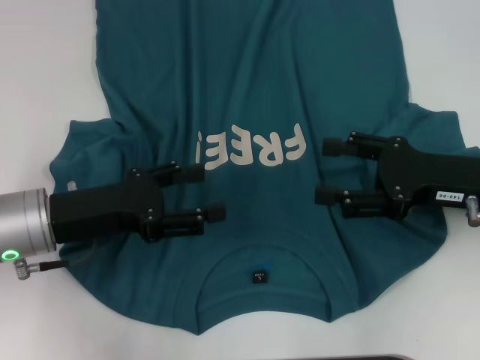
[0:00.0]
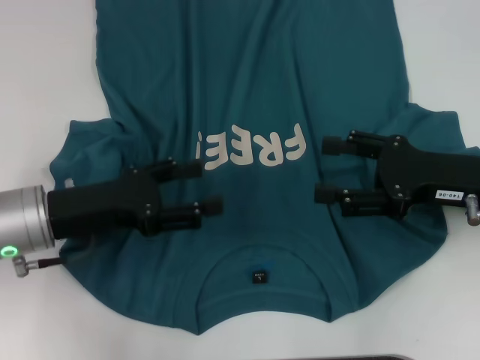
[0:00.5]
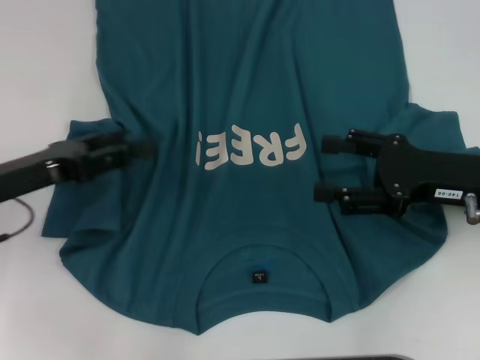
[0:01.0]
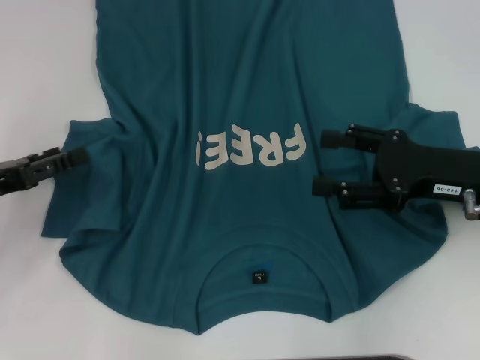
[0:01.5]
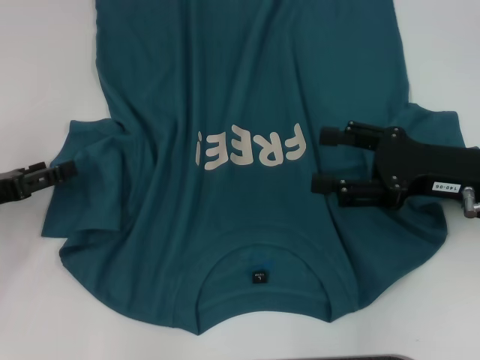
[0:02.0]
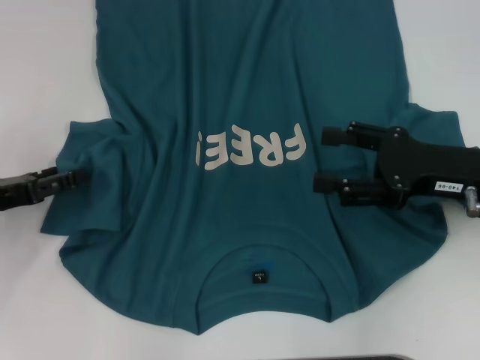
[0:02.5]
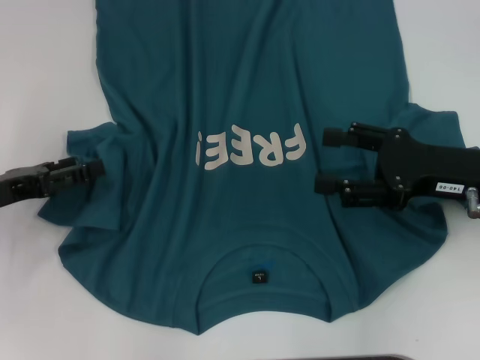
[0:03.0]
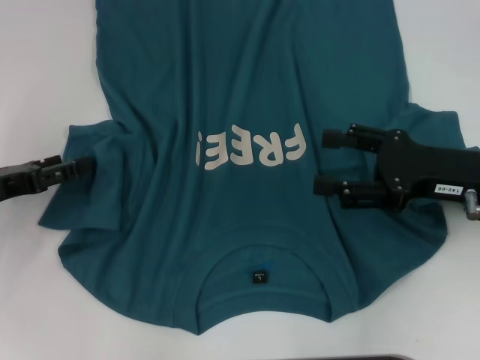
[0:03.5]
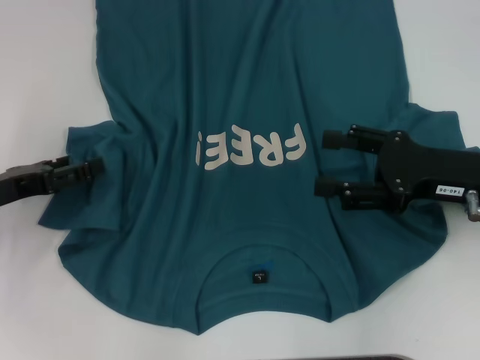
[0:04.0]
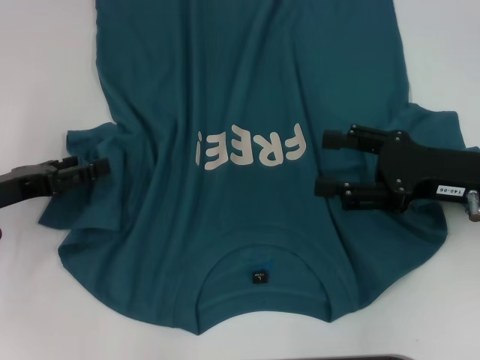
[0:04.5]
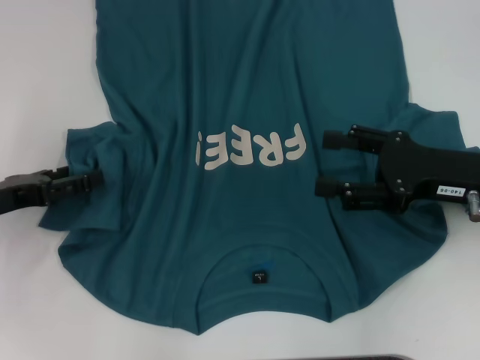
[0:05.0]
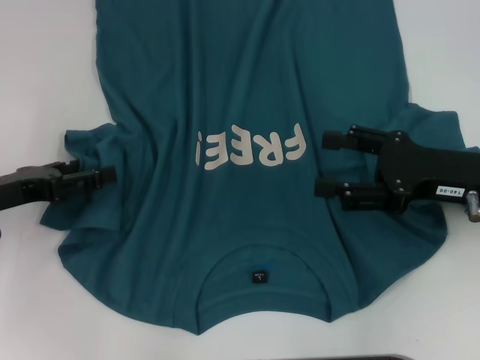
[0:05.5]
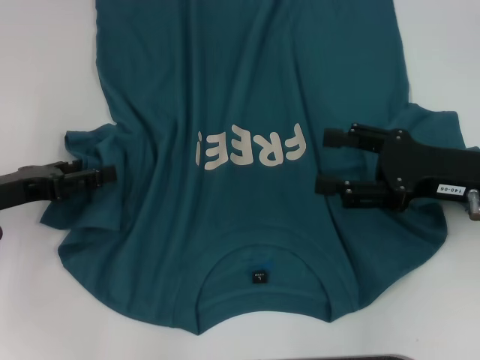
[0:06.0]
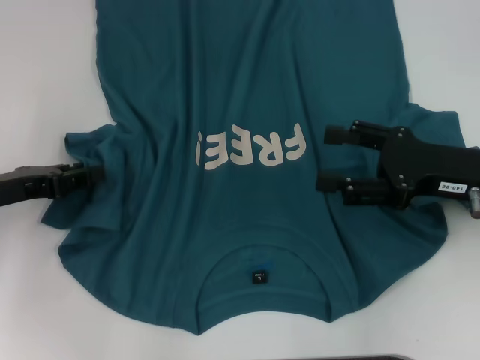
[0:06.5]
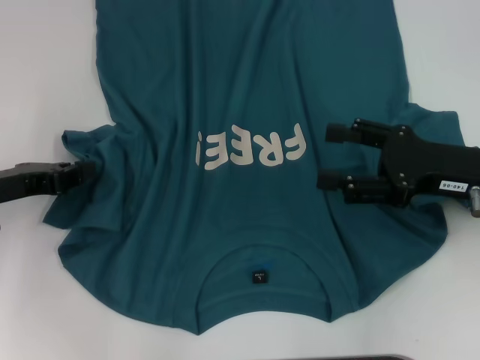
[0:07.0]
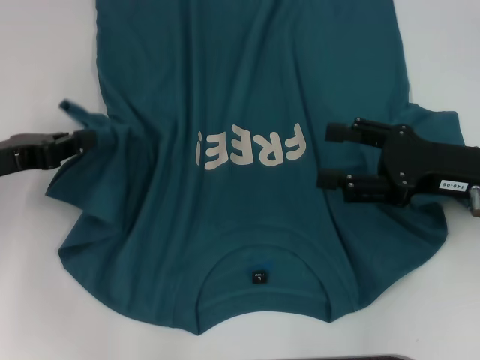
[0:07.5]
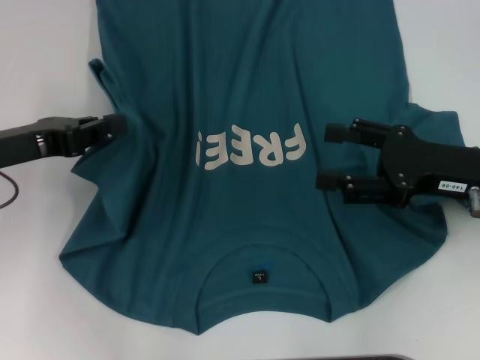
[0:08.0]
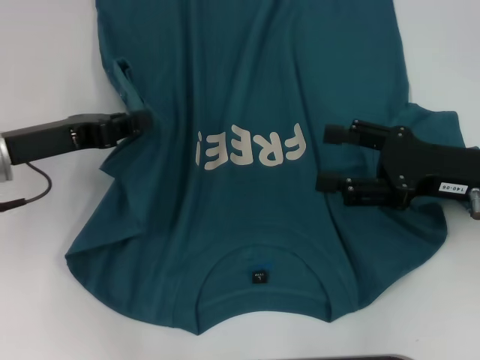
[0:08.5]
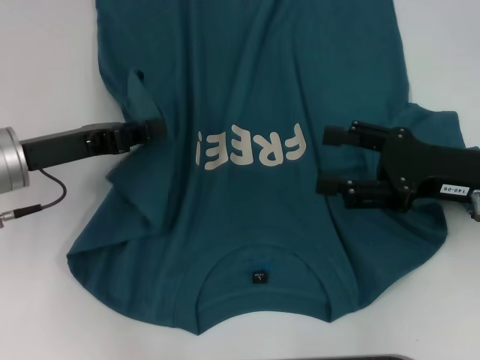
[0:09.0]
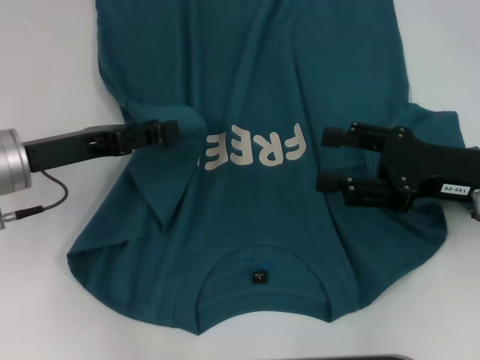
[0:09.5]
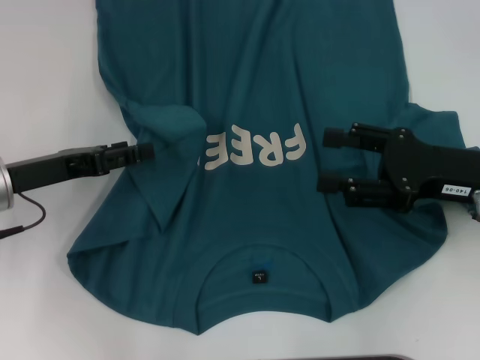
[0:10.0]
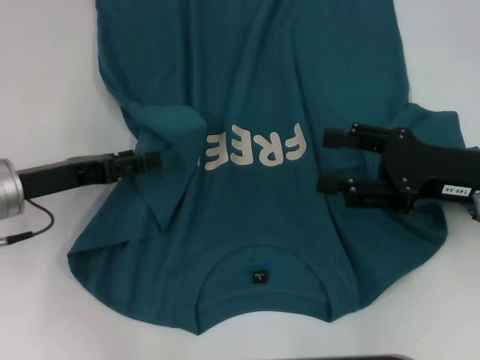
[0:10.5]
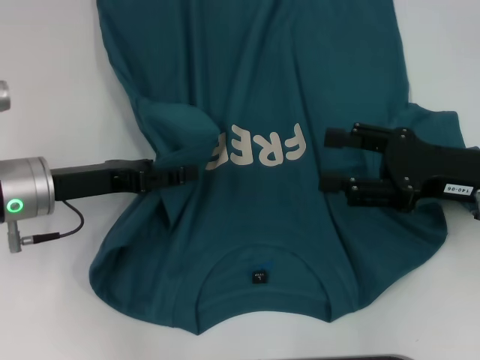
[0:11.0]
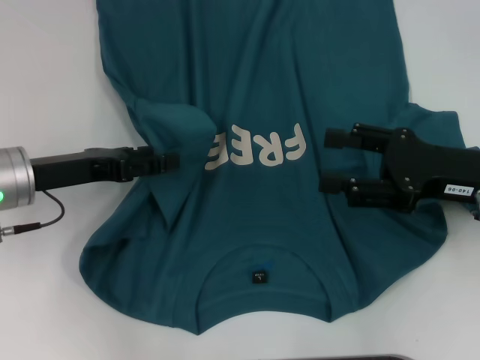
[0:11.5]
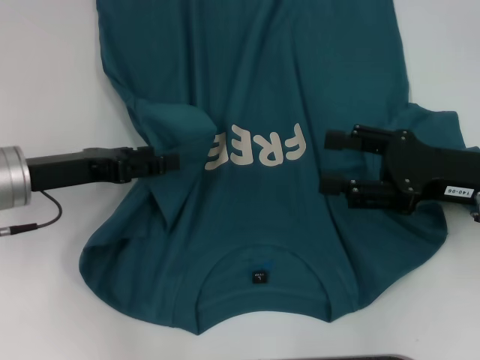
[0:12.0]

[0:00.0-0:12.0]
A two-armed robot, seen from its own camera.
0:00.0 to 0:02.0: The left gripper is displaced to the left by approximately 10 cm.
0:02.0 to 0:06.0: There are only small adjustments of the grippers.
0:06.0 to 0:08.0: The left gripper changes place by approximately 5 cm, and closes its fingers.
0:08.0 to 0:10.0: The left gripper opens its fingers.
0:10.0 to 0:12.0: There are only small adjustments of the grippers.

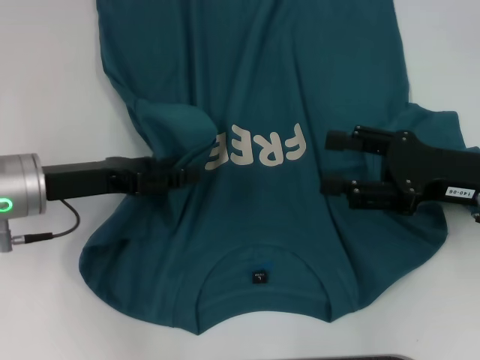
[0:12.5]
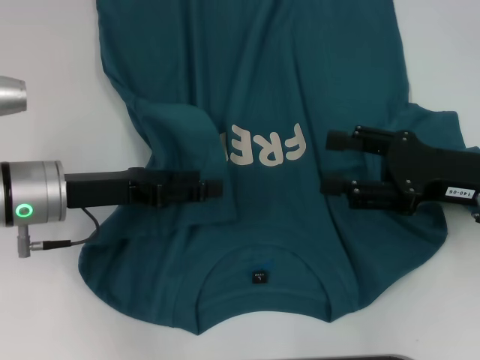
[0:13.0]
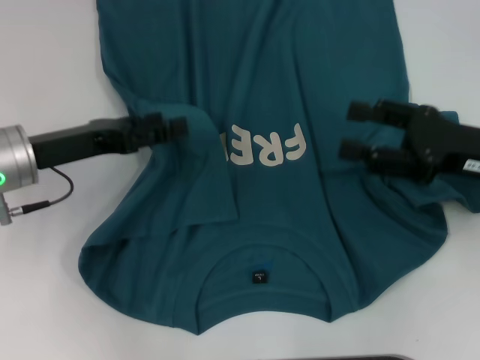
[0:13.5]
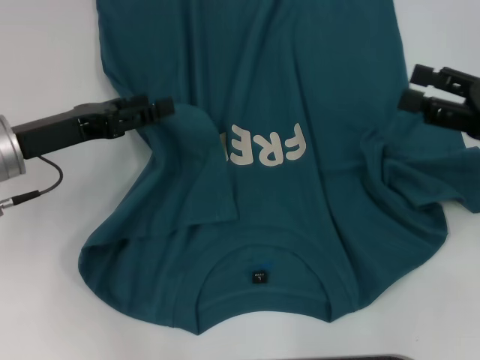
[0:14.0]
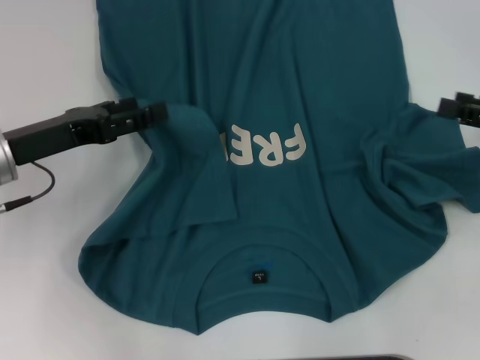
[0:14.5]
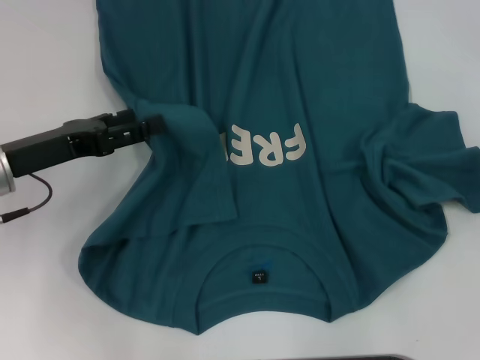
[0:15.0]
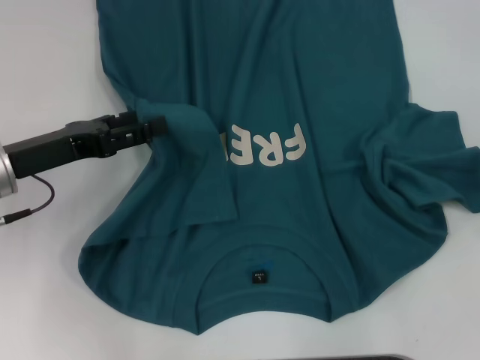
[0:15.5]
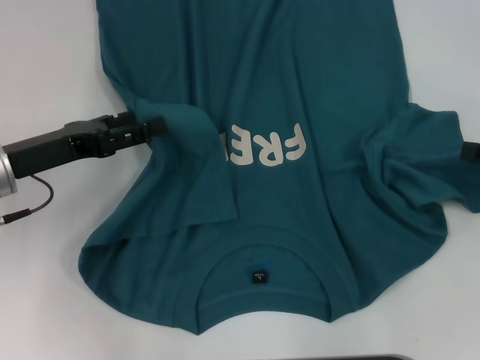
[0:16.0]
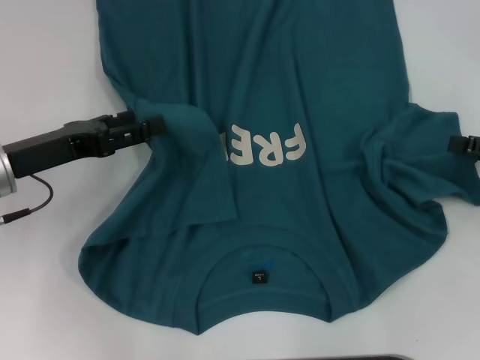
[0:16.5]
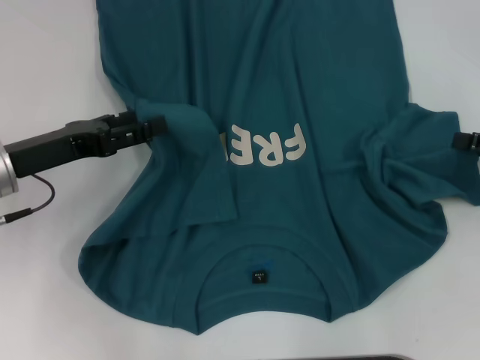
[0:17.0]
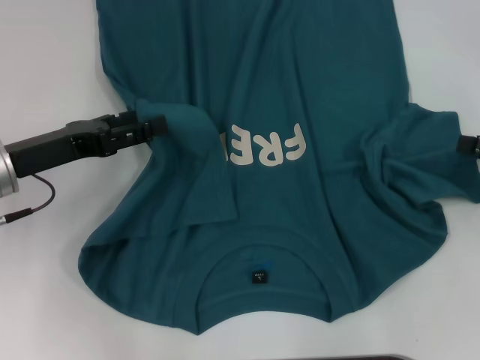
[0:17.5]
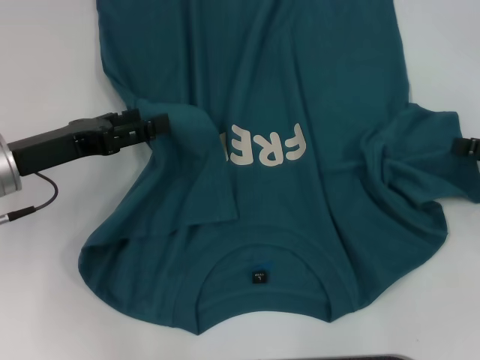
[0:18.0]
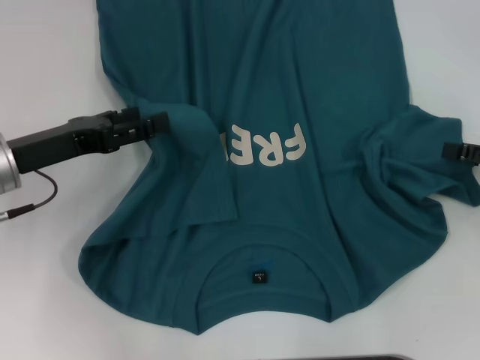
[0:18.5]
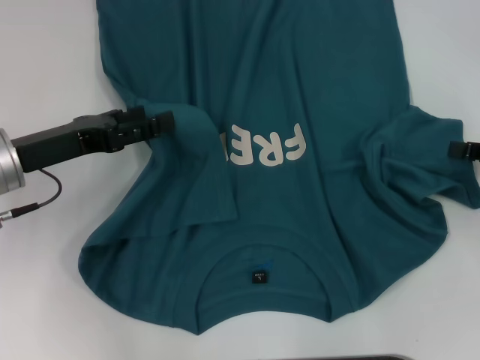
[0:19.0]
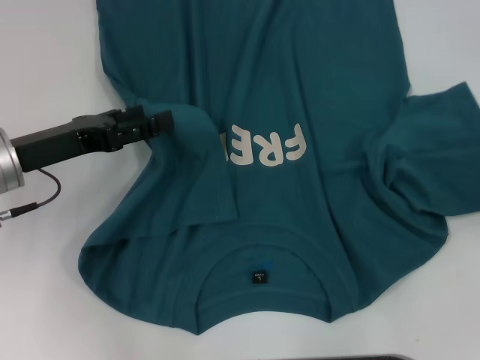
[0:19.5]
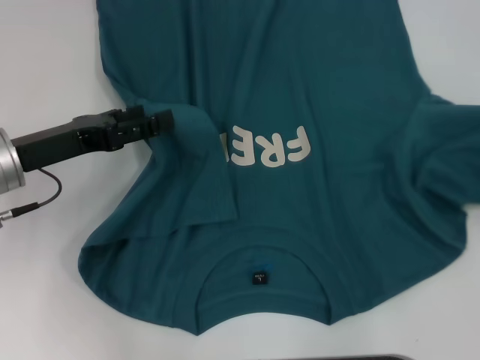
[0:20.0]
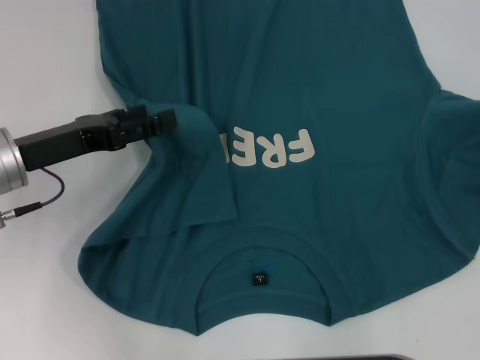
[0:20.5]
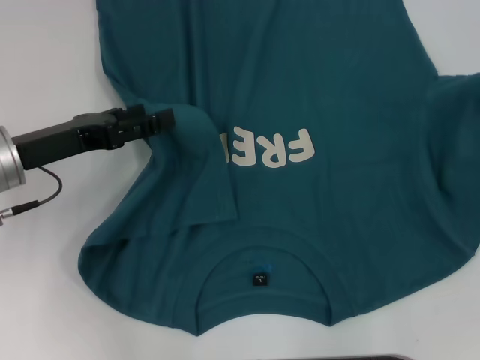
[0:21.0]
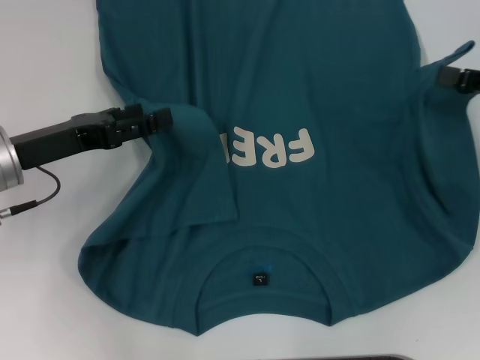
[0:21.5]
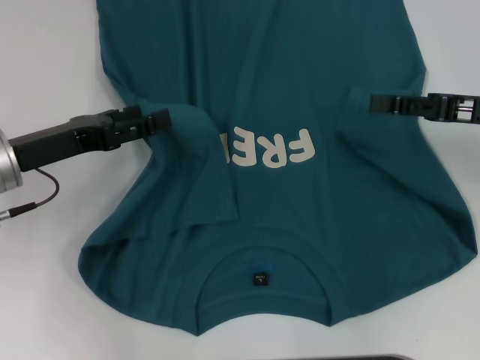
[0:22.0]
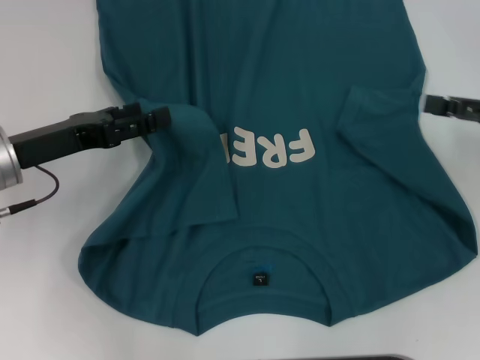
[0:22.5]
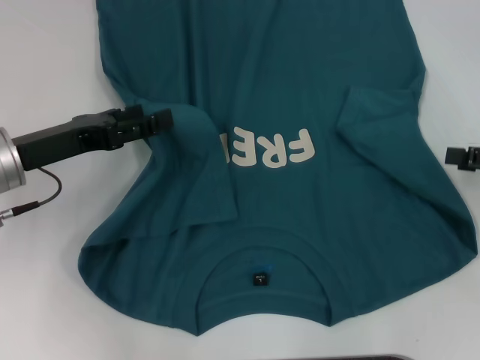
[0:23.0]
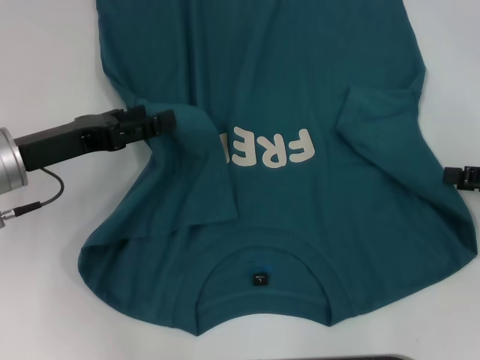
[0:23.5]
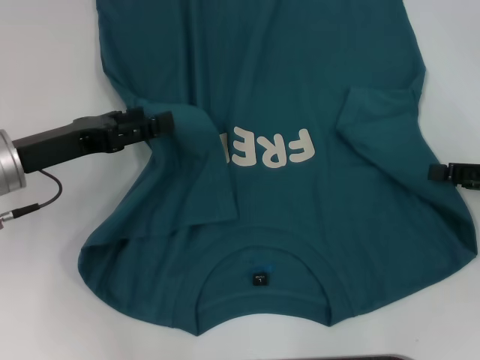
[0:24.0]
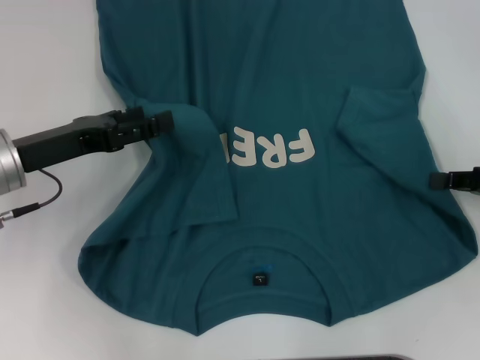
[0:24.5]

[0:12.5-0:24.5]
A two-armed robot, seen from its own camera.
0:12.5 to 0:14.5: The right gripper shifts about 10 cm to the right.
0:16.5 to 0:18.5: Both grippers stay put.
0:18.5 to 0:20.5: The right gripper shifts by roughly 5 cm, and closes.
0:20.5 to 0:22.5: The right gripper goes some 5 cm to the left, and opens.
0:22.5 to 0:24.5: The right gripper closes.

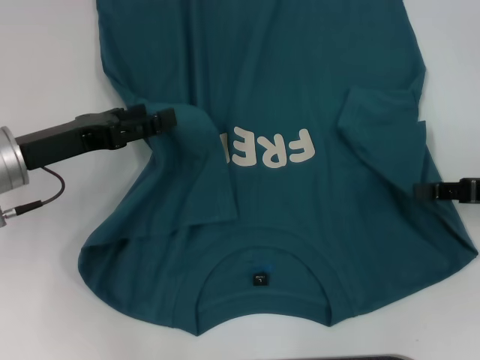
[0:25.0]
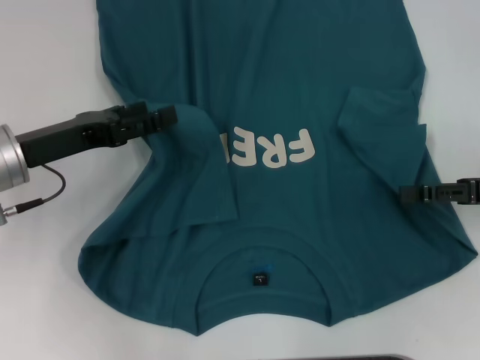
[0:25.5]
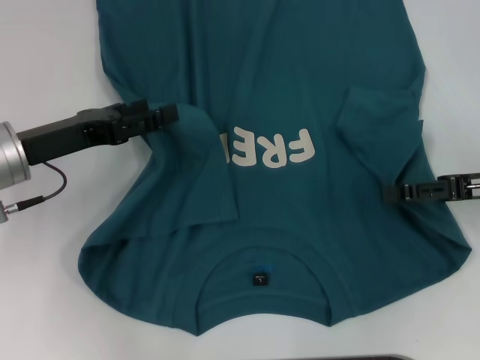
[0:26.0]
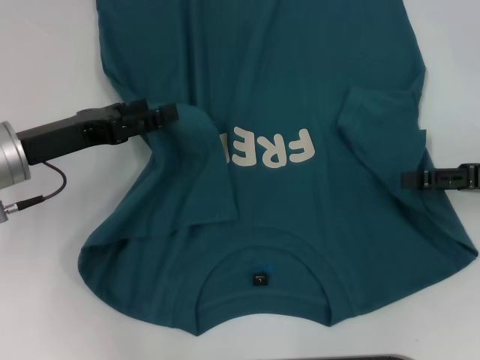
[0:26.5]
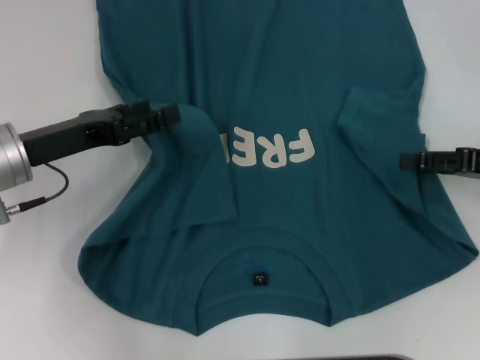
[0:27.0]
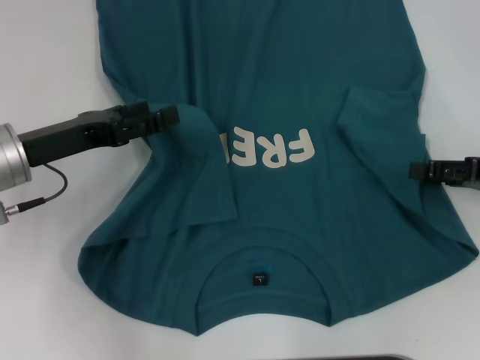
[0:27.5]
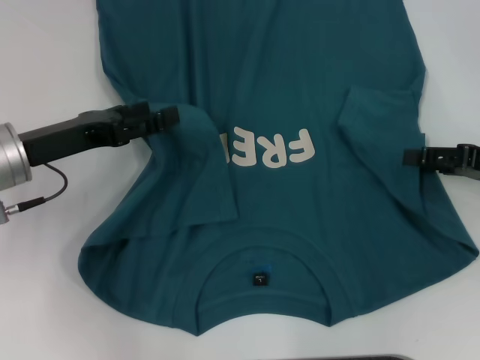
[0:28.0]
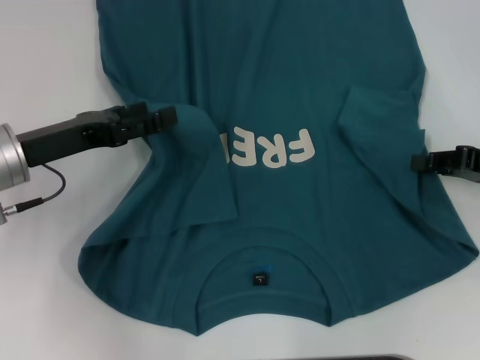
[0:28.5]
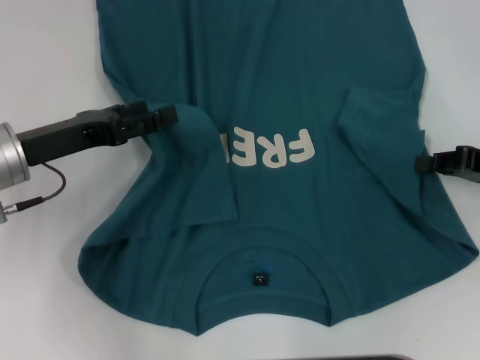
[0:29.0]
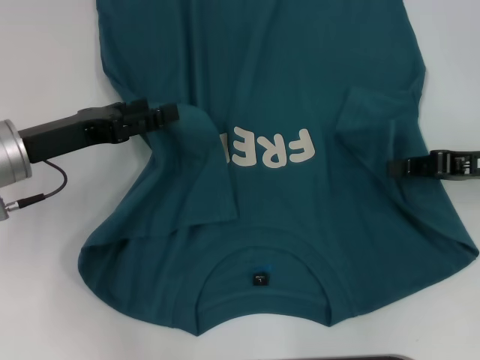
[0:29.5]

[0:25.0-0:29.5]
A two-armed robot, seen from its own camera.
0:25.0 to 0:27.0: The right gripper opens.
